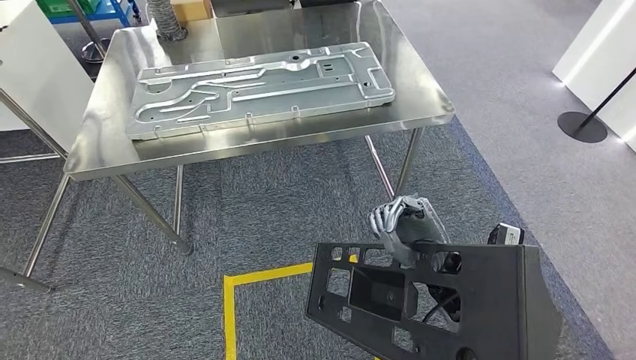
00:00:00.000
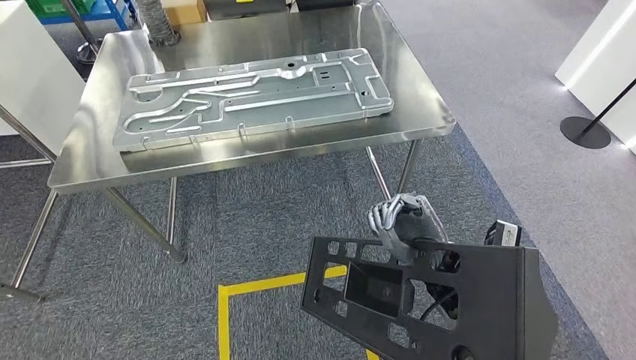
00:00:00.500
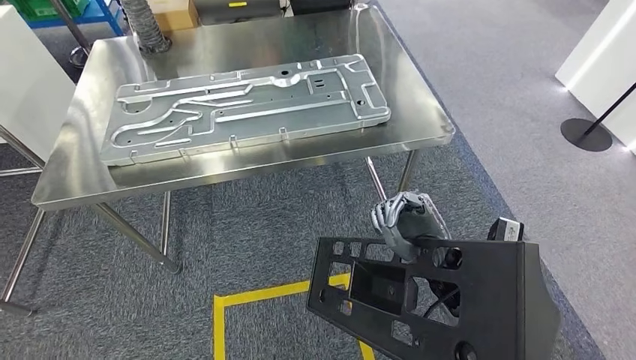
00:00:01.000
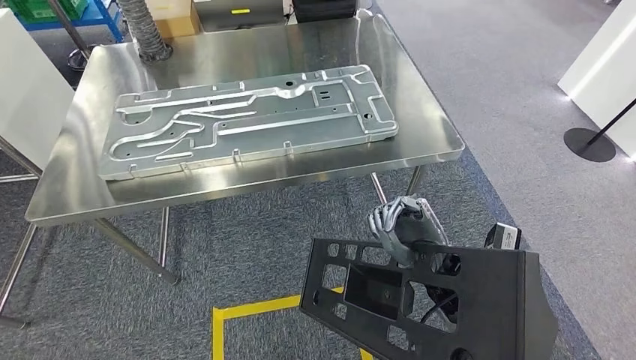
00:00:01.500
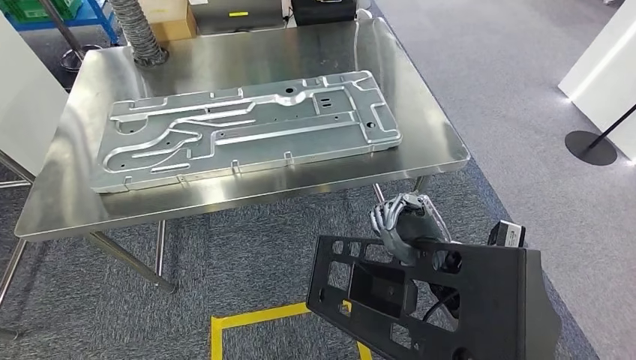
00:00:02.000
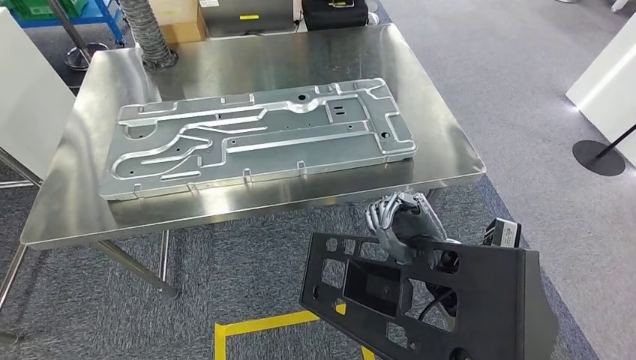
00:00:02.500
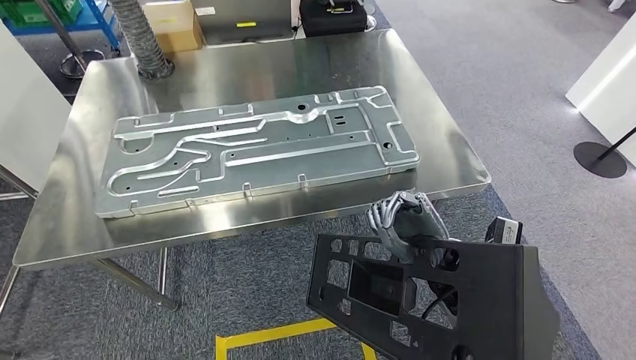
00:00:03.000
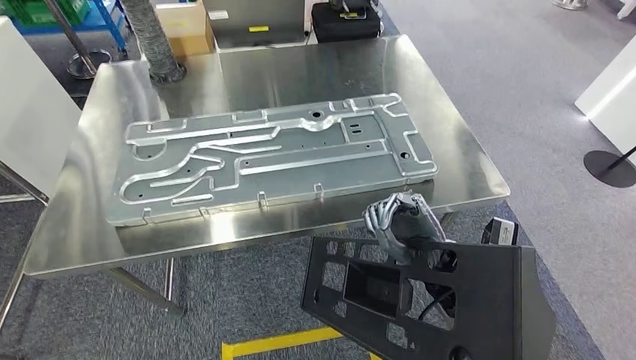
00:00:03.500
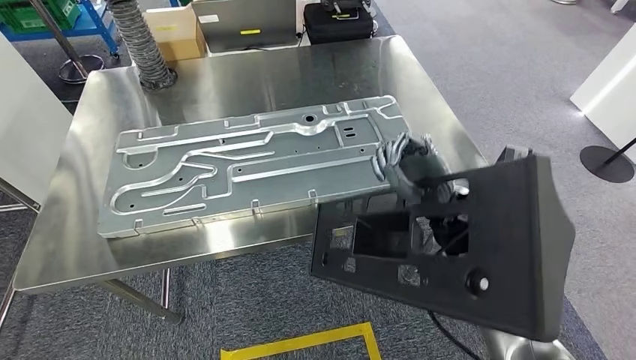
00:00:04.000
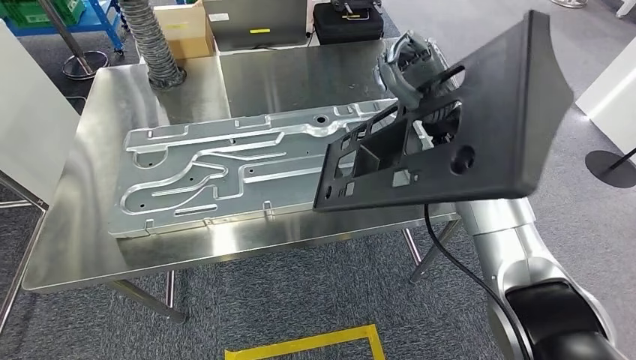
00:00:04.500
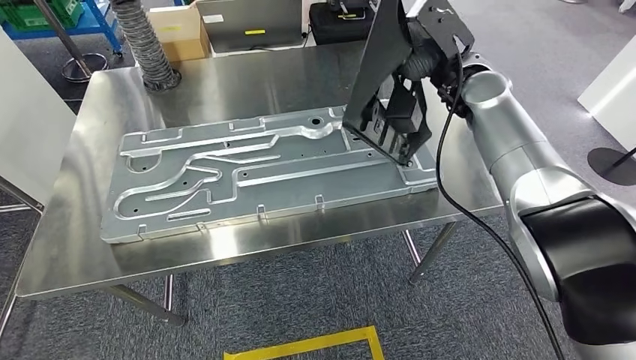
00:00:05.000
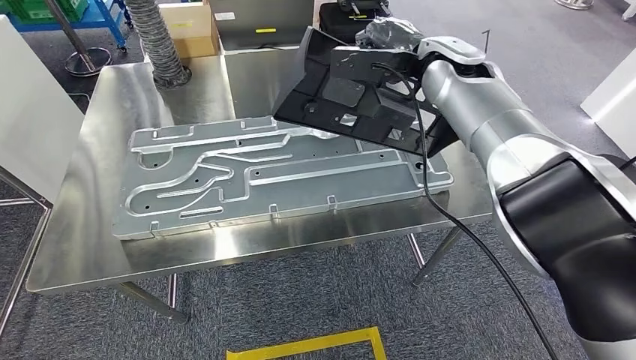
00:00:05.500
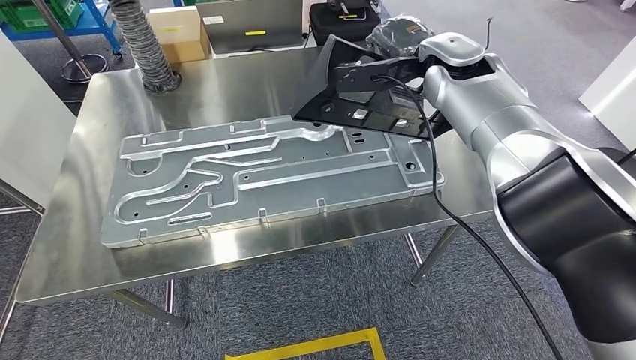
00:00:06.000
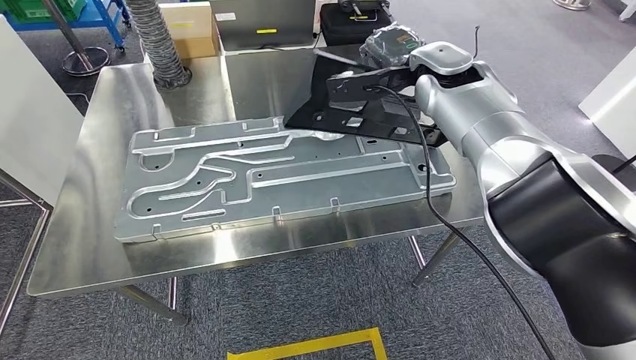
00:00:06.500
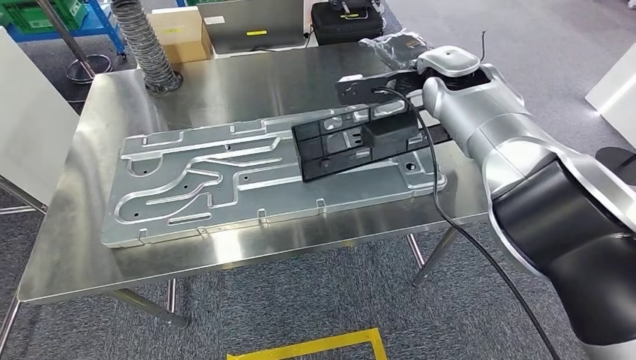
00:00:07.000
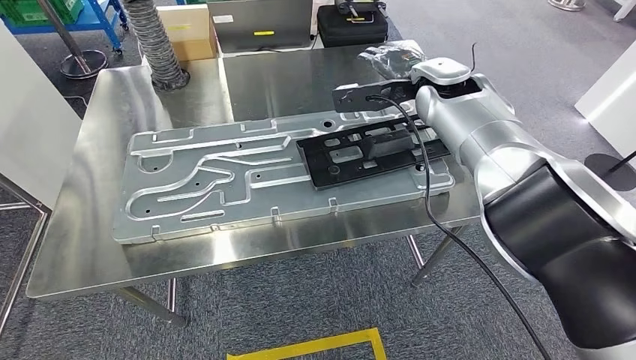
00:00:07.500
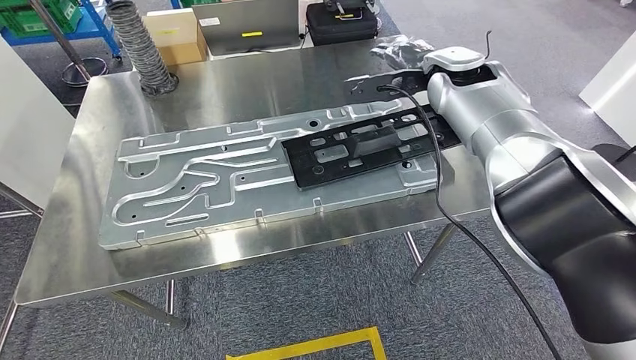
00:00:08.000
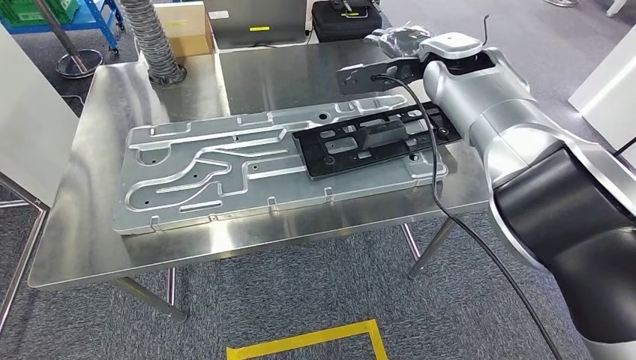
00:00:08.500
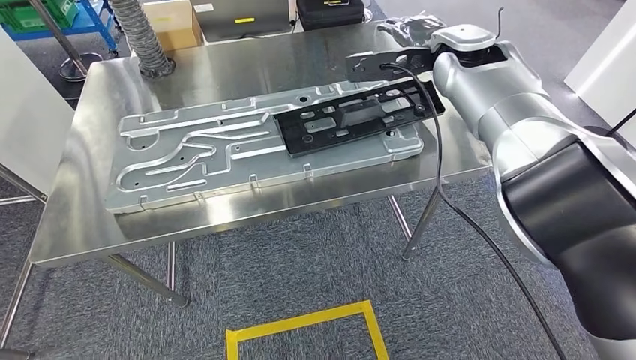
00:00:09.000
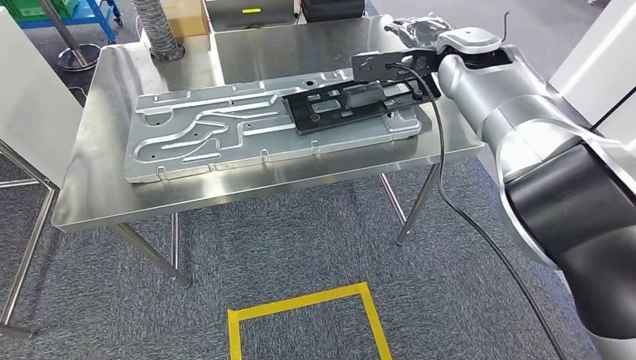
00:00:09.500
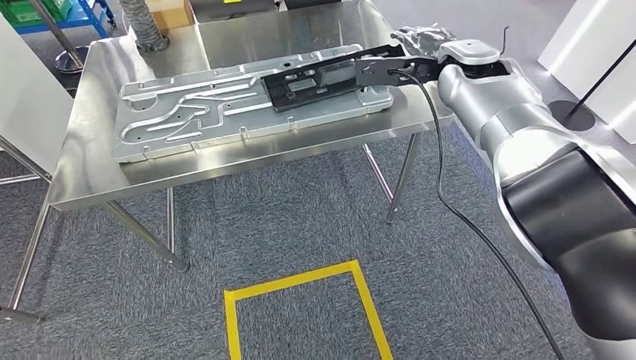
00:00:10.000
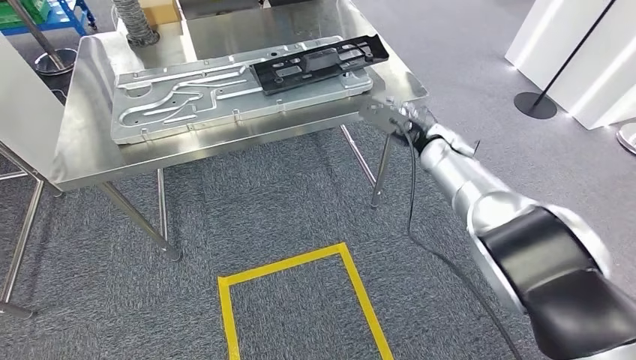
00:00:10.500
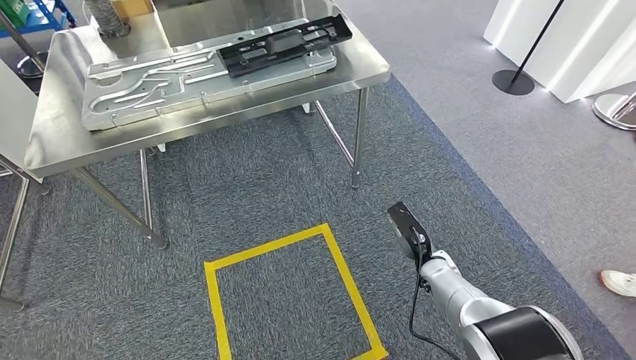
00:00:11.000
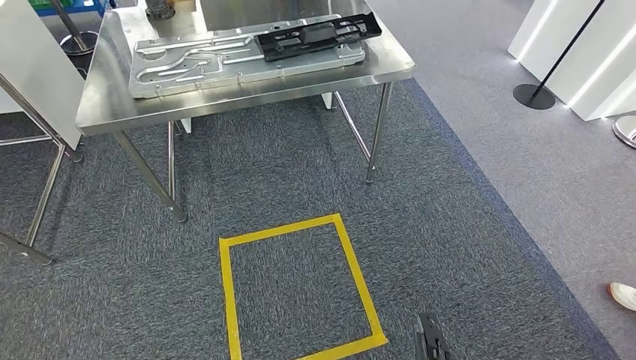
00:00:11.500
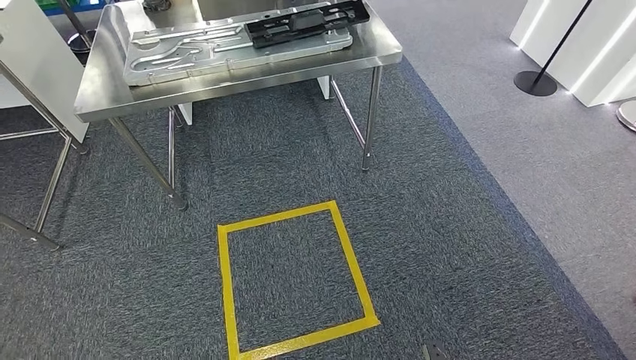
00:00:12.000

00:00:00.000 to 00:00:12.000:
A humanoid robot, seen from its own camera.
Step, 00:00:00.000 to 00:00:05.000: Move the large material to the workbench.
Step, 00:00:06.500 to 00:00:08.000: Insert the large material into the corresponding slot on the workbench.
Step, 00:00:09.500 to 00:00:12.000: Return to the initial position at the shelf.
00:00:06.000 to 00:00:08.000: There are only small adjustments of the hands.
